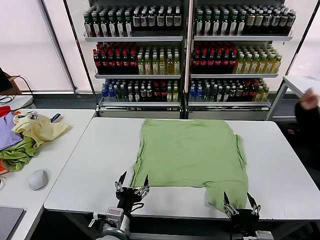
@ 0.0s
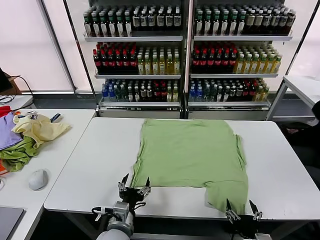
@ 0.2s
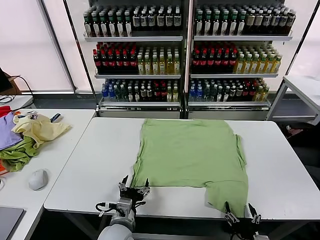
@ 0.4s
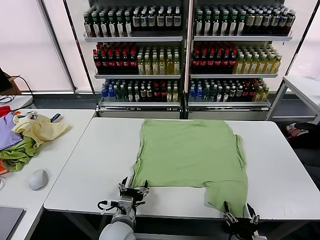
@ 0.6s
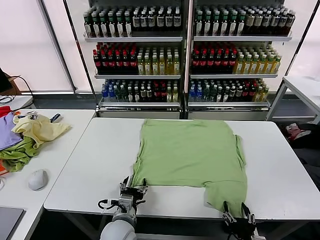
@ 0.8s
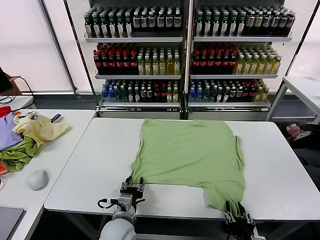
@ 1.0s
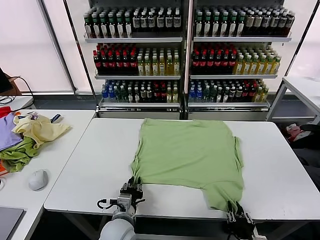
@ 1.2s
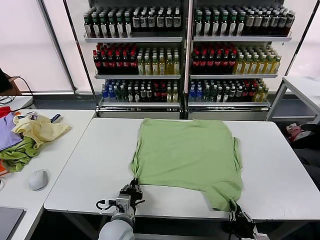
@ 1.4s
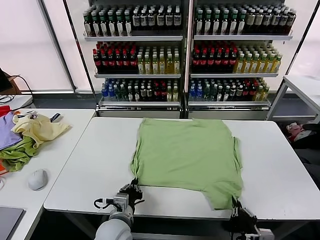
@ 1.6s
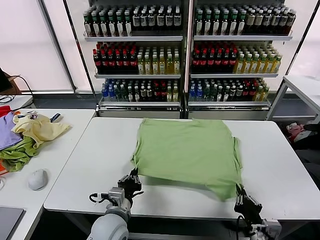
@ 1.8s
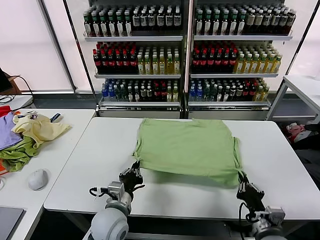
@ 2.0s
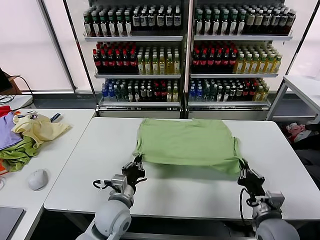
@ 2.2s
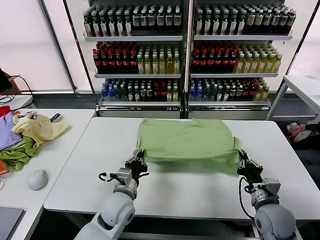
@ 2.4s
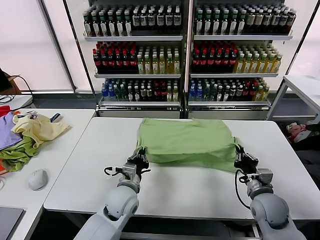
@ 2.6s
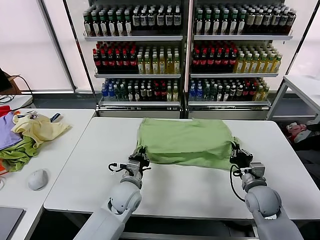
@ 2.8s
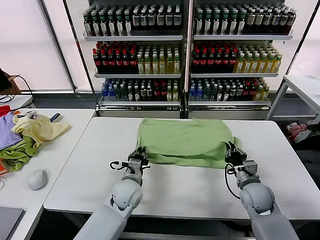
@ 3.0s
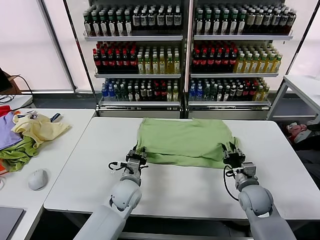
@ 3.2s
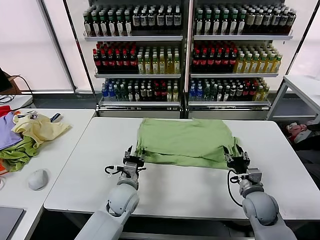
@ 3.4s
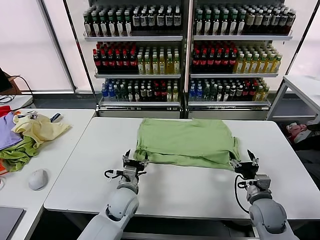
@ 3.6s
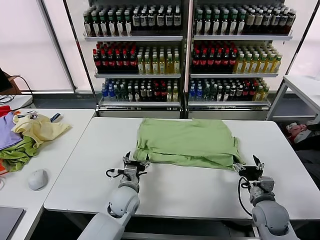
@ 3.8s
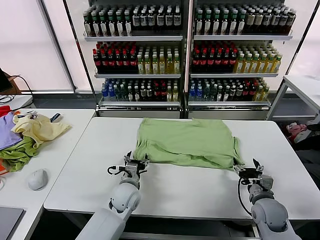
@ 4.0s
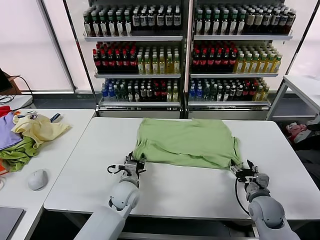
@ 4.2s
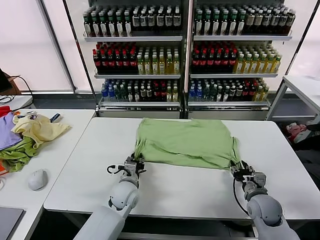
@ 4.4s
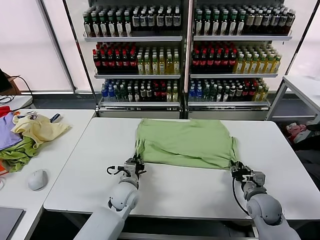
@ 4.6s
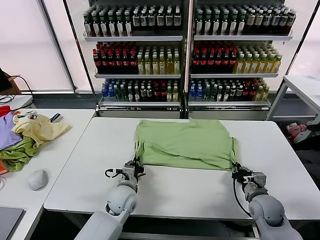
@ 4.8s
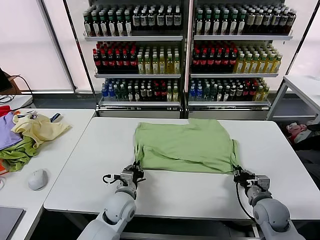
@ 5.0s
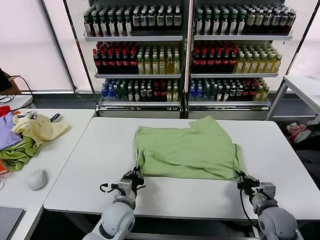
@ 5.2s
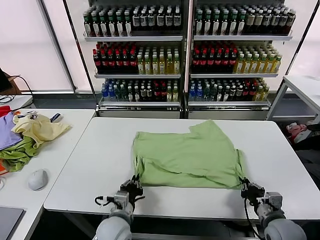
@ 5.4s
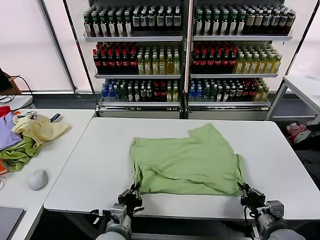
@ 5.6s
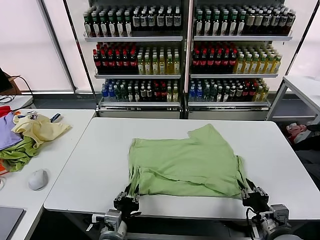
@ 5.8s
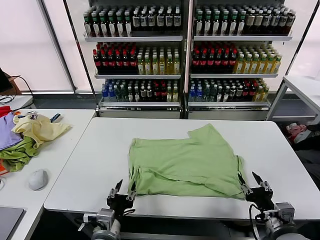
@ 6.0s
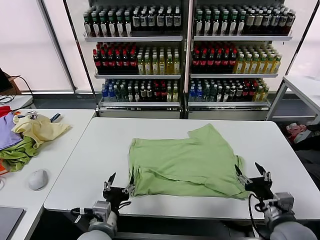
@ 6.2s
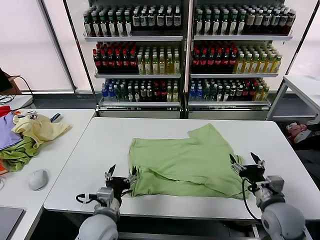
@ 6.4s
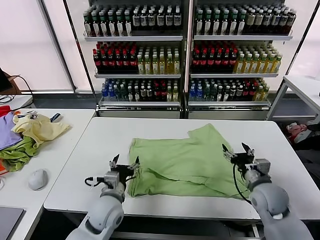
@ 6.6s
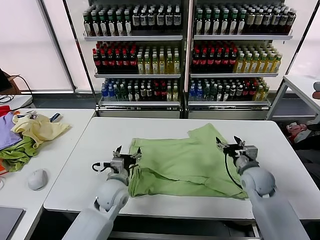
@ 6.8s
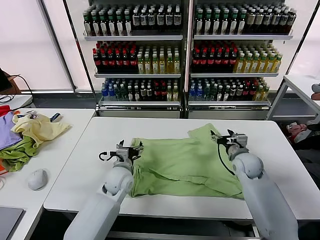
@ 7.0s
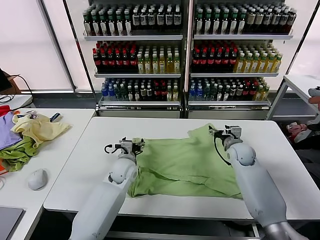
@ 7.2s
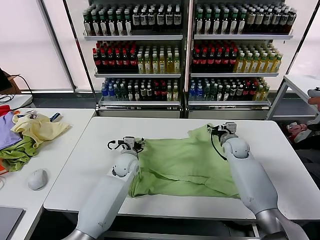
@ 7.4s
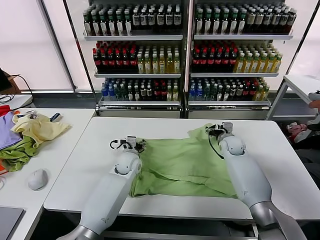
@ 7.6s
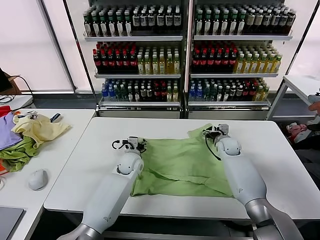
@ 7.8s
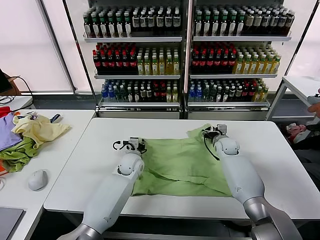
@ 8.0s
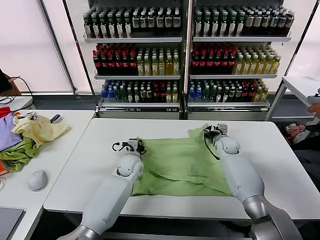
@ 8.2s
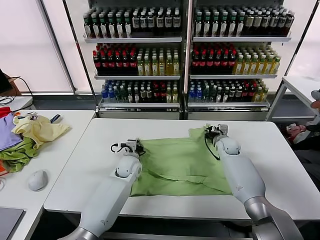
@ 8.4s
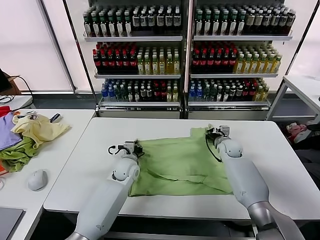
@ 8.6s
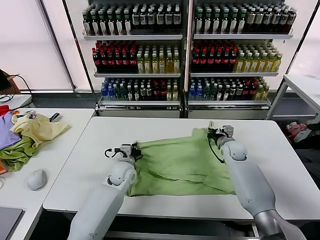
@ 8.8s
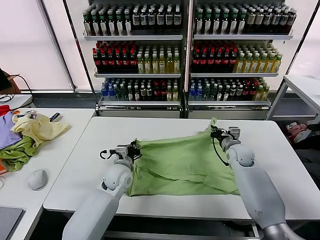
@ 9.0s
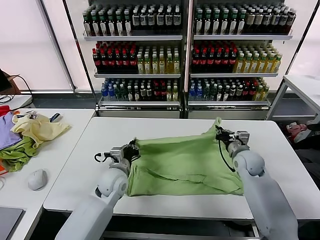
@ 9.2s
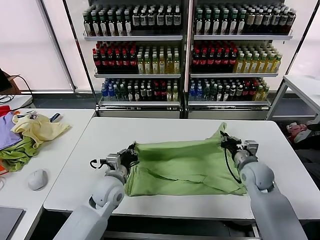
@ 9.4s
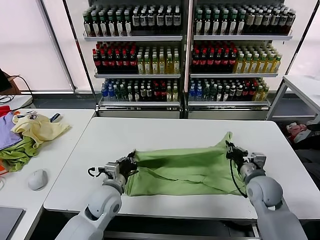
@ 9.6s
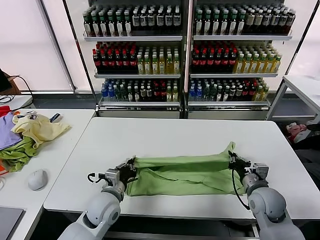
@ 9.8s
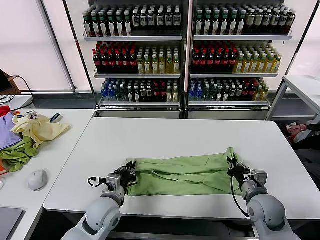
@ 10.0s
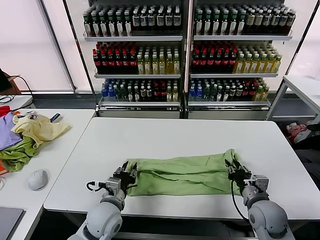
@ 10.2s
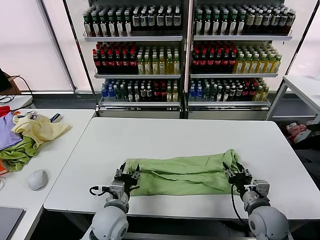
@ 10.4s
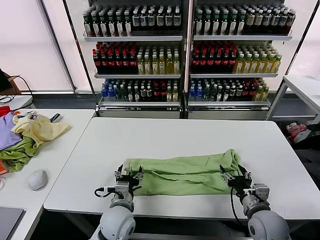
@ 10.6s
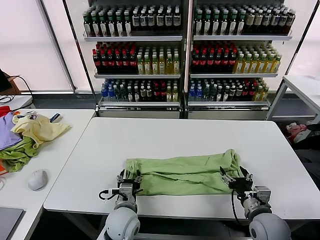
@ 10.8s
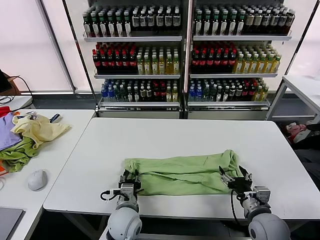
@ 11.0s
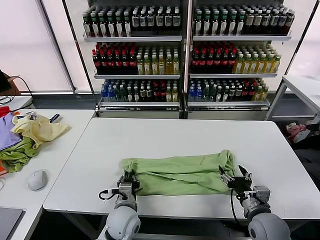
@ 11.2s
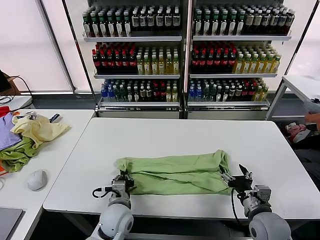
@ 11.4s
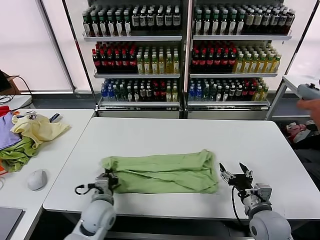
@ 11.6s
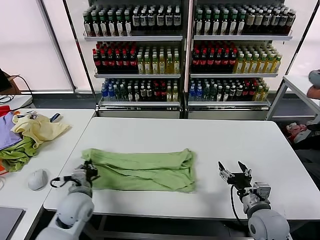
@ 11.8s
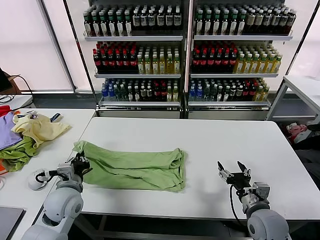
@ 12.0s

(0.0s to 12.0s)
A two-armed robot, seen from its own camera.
Task of the whole recording: fold and organize the clothes.
Step, 0.0s - 1.4s: use both grippers simultaneously to clamp the lower edge of the clothing fabric.
Step, 1.8s - 3.2s: use both grippers to drag the lower edge of the fabric forward and fold it over the upper edge.
Step, 3.4s - 5.8s: Drag the clothes downward with both gripper.
Step, 6.0s - 8.4s: use both grippers simultaneously to clamp the upper edge of the clothing fabric.
Step, 8.6s - 10.2s: use both grippers to drag the upper edge of the fabric backward and fold it over the lower edge.
Step, 10.4s - 11.2s: use the left gripper to clamp the left edge of the fabric.
1.6s - 3.0s: The left gripper shifts some 15 cm forward, while the right gripper is displaced forward by approximately 20 cm.
3.0s - 4.4s: The left gripper opens and closes again; the right gripper opens, then closes once more.
4.4s - 6.0s: The right gripper goes some 15 cm backward and upward, and opens up, while the left gripper heads backward, covering some 20 cm.
6.0s - 7.6s: Both grippers travel together forward, approximately 35 cm. The left gripper opens its fingers.
7.6s - 9.0s: Both grippers travel together backward, roughly 5 cm. The left gripper closes up. Meanwhile the right gripper closes.
9.0s - 10.4s: Both grippers travel together backward, approximately 20 cm. The right gripper opens up. Meanwhile the left gripper opens up.
10.4s - 12.0s: The left gripper is displaced to the left by some 15 cm, and closes.

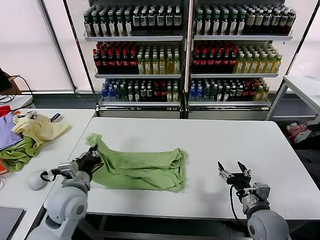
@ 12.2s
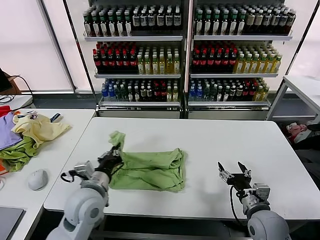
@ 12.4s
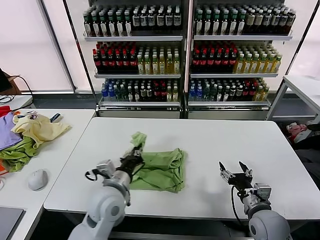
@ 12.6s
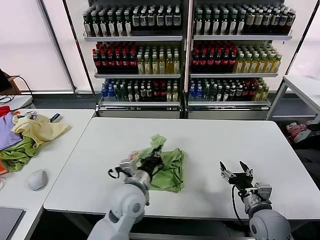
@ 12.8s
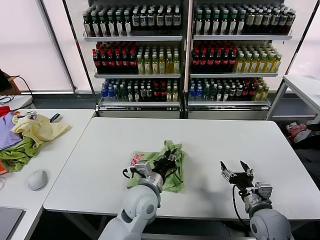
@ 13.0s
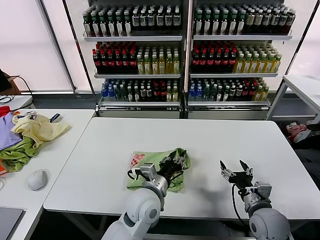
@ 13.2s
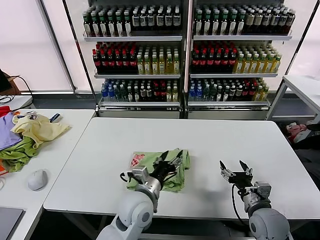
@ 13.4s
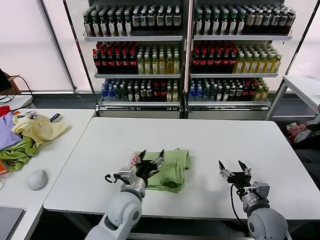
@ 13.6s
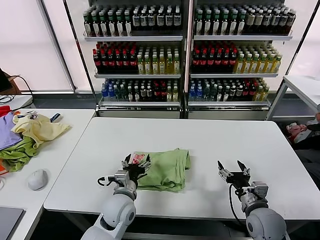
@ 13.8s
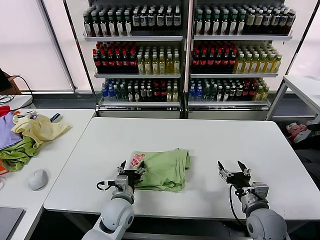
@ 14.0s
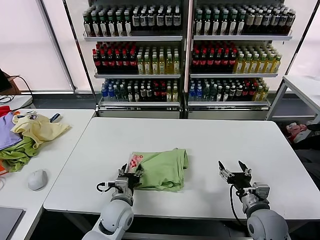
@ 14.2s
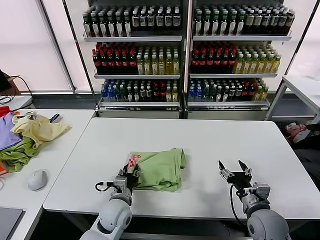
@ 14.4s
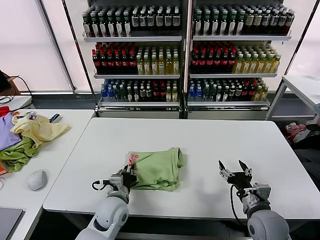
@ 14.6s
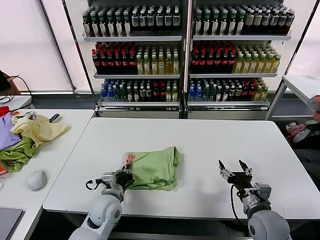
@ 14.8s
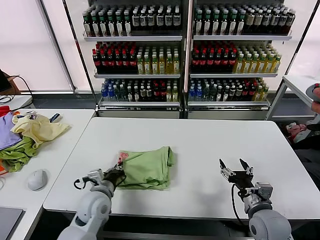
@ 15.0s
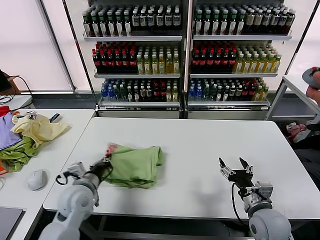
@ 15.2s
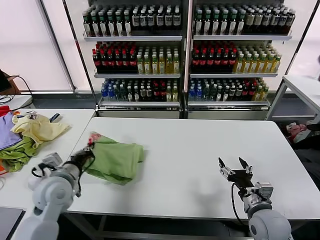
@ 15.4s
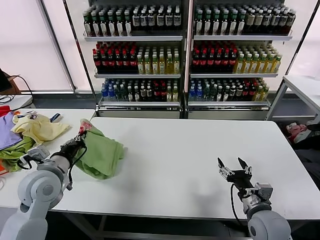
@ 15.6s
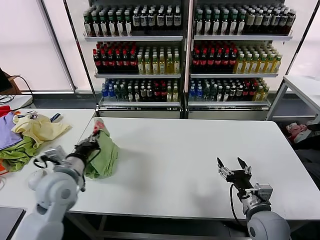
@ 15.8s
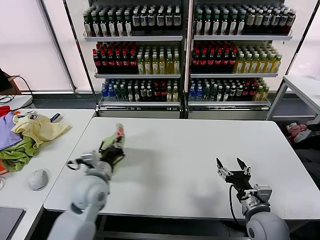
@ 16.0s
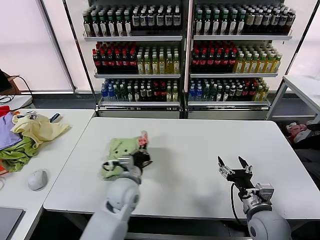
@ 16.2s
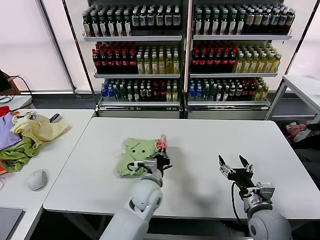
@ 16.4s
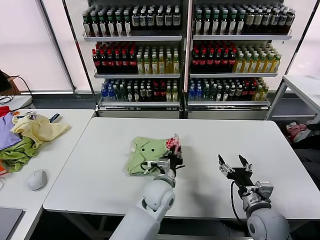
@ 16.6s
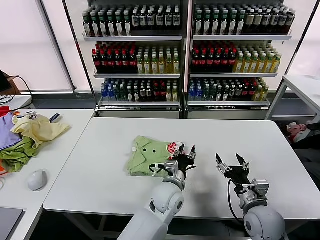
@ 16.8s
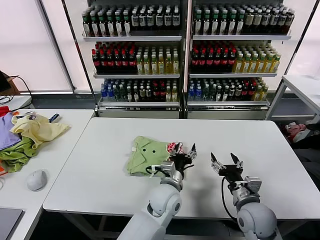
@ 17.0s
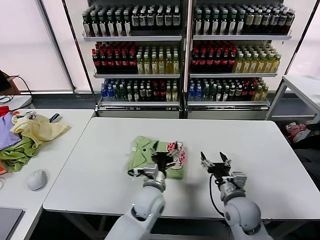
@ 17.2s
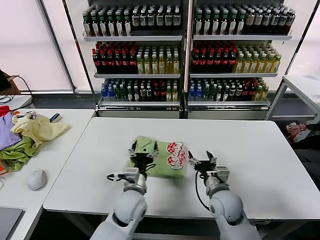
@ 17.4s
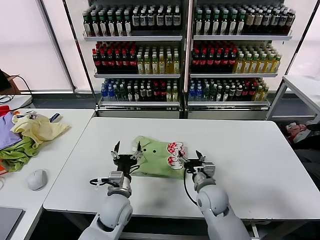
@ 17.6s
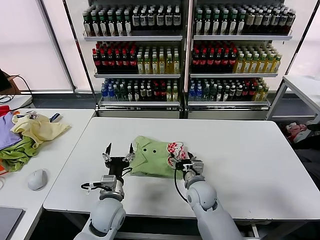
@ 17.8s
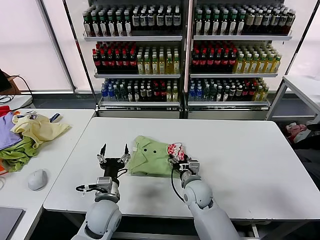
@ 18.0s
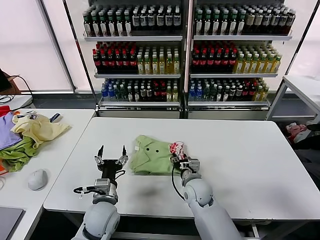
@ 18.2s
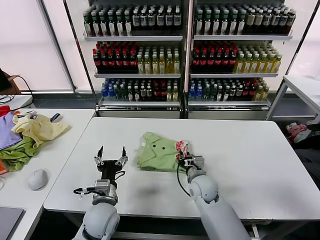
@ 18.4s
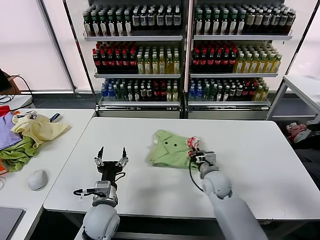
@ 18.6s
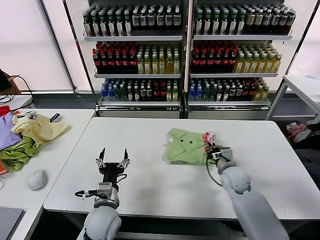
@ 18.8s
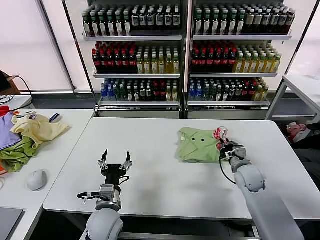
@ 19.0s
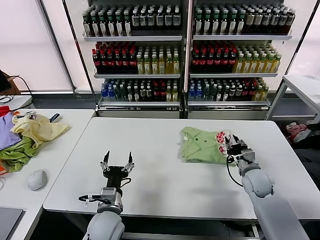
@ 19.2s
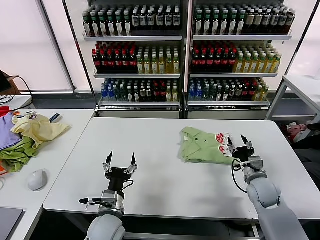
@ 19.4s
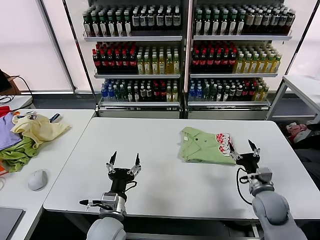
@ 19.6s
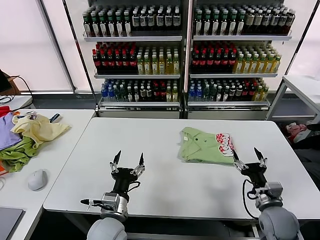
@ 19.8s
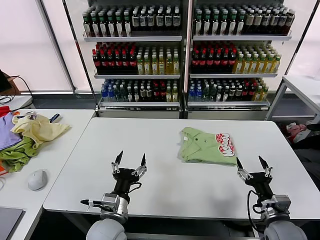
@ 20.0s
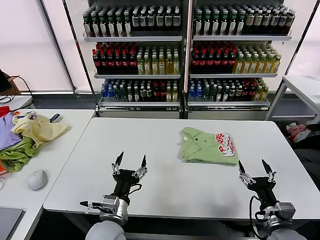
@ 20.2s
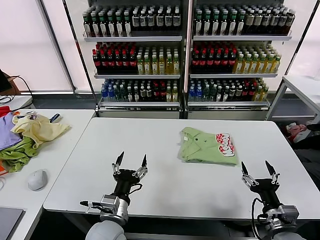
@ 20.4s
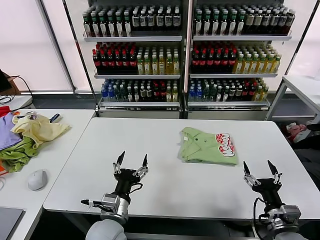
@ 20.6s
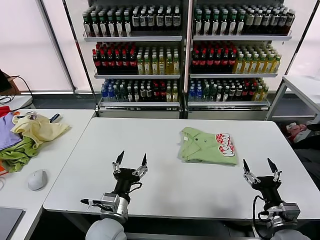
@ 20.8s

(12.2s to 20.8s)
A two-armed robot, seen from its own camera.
Task of the whole recording: fold and organize the clothes.
Step, 12.2s - 13.2s: use the left gripper to drag the left edge of the fabric to the left and folds it over the right edge.
Step, 13.4s - 16.6s: Flip the folded clothes over with left gripper.
Step, 16.8s - 19.2s: Drag the clothes to the center of the table.
12.2s - 13.6s: The left gripper travels to the right by some 15 cm, and opens its fingers.
13.6s - 15.0s: The left gripper is displaced to the left by about 10 cm, and closes its fingers.
15.0s - 16.6s: The left gripper moves to the right, roughly 20 cm.
16.6s - 18.0s: The right gripper moves to the left and forward, roughly 20 cm; the left gripper moves to the left and backward, some 15 cm, and opens its fingers.
18.0s - 19.4s: The right gripper travels to the right by roughly 20 cm, and closes, then reopens.
19.4s - 20.8s: The right gripper shifts approximately 20 cm backward, and opens up.
